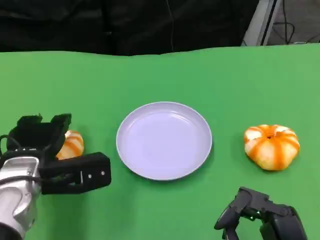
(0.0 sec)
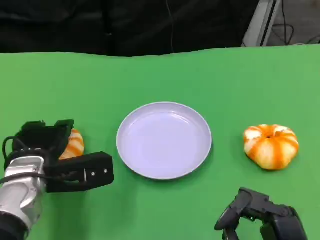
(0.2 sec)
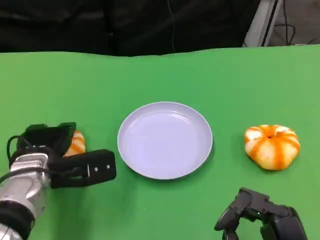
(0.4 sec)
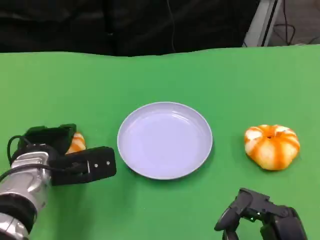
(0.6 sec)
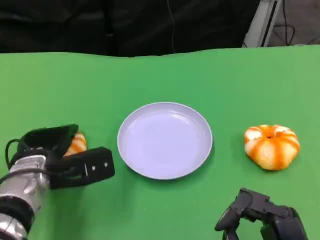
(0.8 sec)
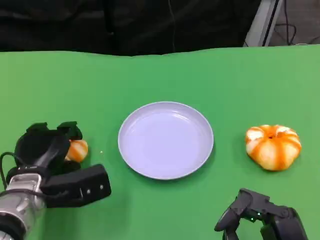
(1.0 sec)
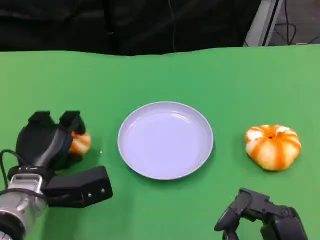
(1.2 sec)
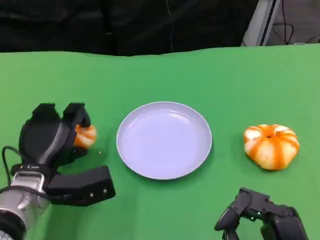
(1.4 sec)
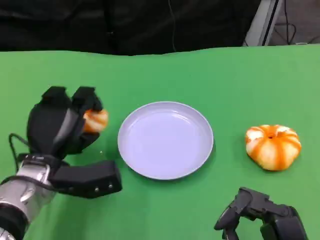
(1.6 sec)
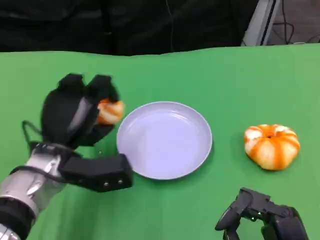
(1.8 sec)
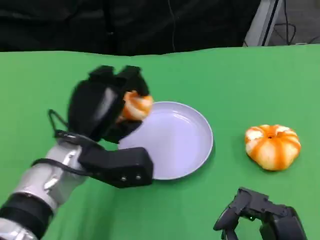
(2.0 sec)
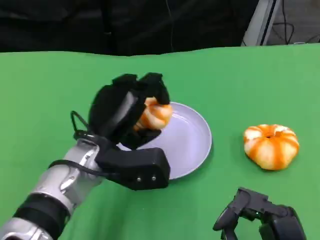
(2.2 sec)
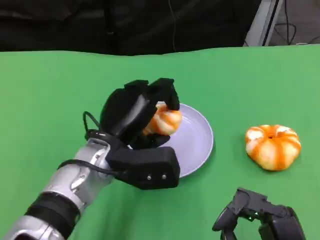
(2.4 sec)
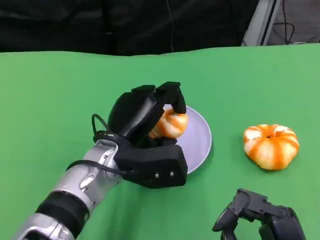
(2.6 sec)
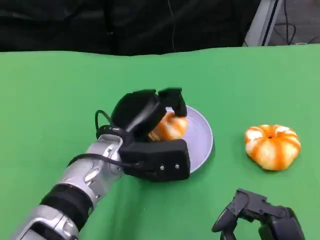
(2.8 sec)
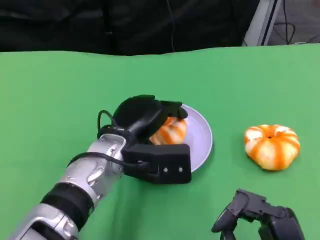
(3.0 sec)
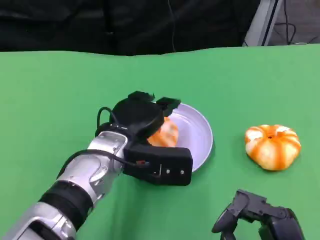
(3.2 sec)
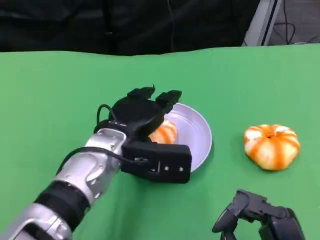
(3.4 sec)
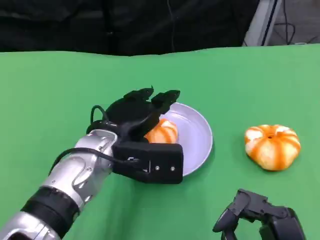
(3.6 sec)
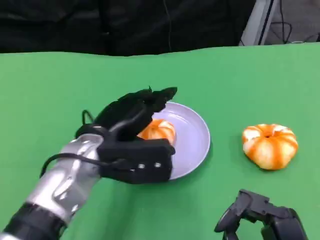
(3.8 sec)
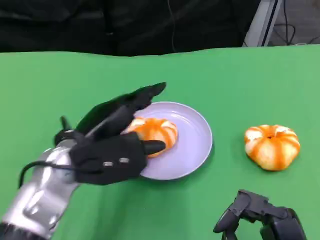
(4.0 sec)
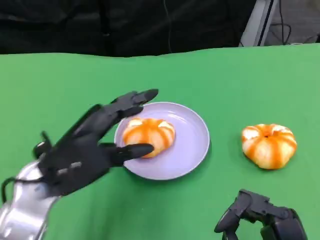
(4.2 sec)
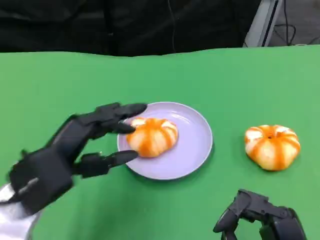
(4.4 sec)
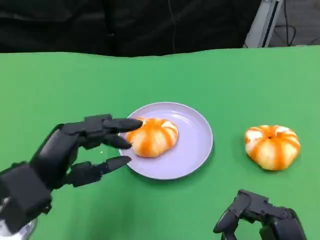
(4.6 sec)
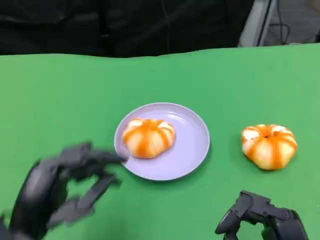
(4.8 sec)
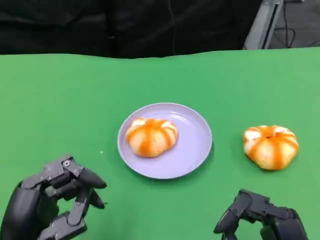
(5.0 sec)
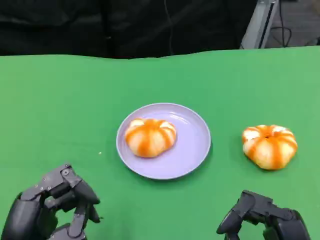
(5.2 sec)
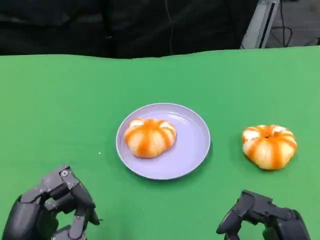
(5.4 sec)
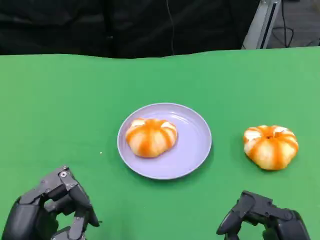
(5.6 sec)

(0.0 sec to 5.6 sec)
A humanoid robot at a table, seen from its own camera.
Task of the whole recording: Grasp the bread from the table and place it into the plate.
1.4 sec - 2.8 sec: The left hand moves to the right and upward, some 10 cm.
2.8 sec - 4.2 sec: The left hand shifts some 10 cm to the left and backward.
4.2 sec - 5.6 sec: The left hand travels backward by approximately 15 cm.

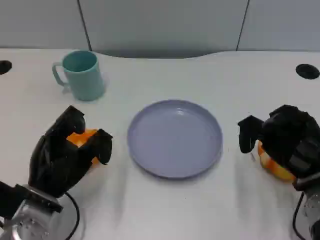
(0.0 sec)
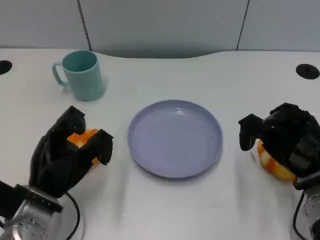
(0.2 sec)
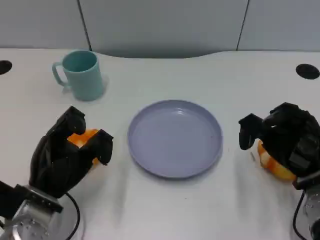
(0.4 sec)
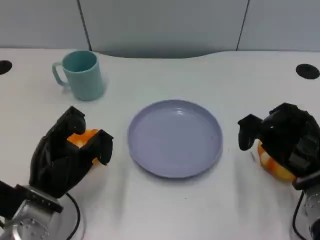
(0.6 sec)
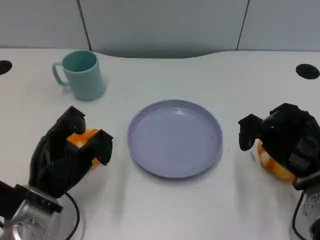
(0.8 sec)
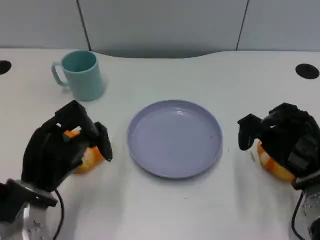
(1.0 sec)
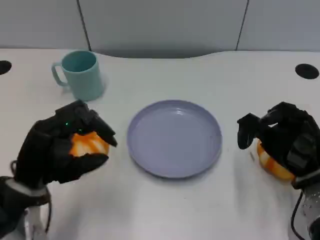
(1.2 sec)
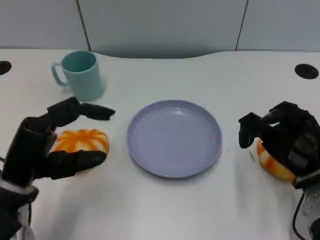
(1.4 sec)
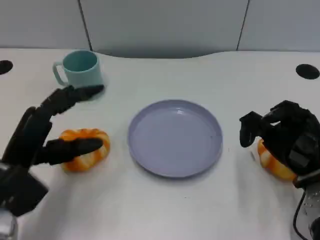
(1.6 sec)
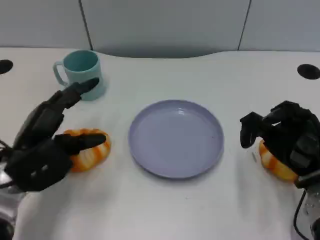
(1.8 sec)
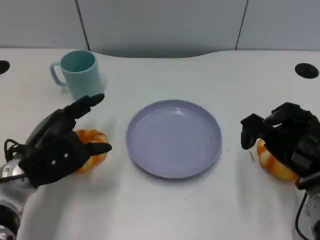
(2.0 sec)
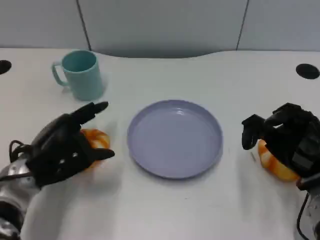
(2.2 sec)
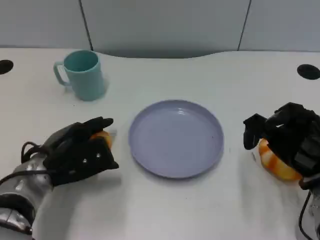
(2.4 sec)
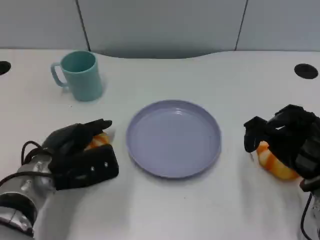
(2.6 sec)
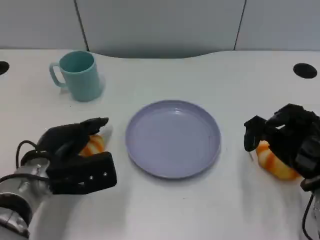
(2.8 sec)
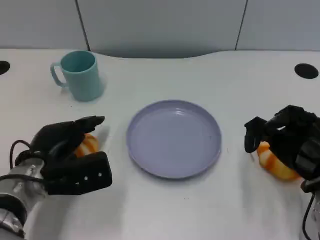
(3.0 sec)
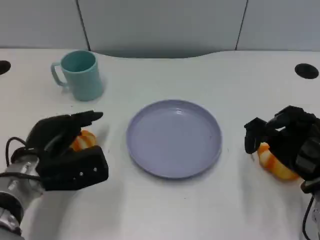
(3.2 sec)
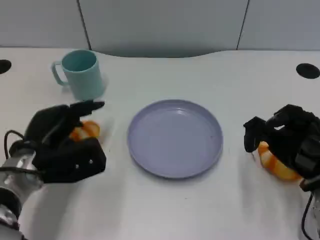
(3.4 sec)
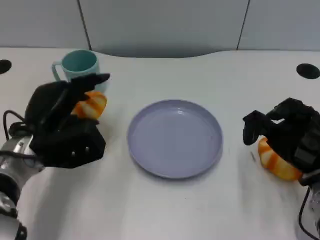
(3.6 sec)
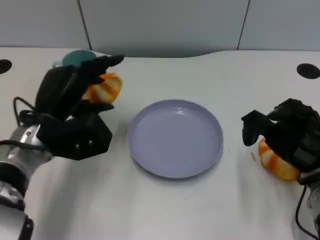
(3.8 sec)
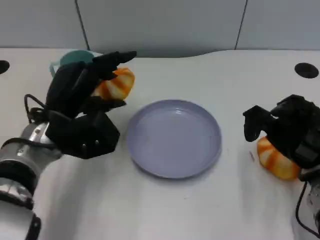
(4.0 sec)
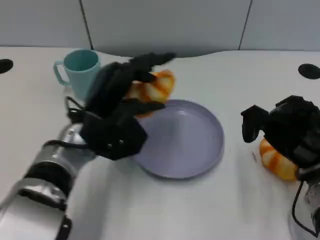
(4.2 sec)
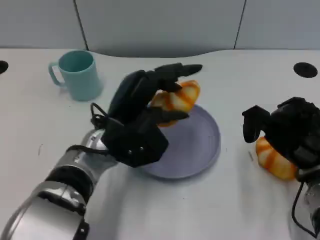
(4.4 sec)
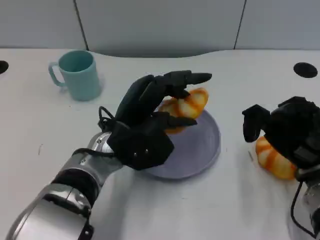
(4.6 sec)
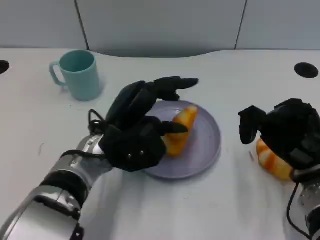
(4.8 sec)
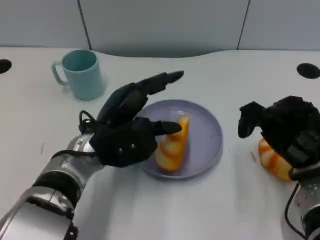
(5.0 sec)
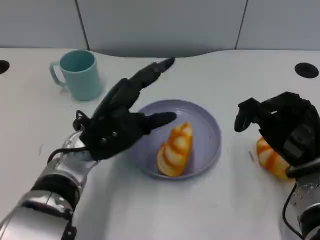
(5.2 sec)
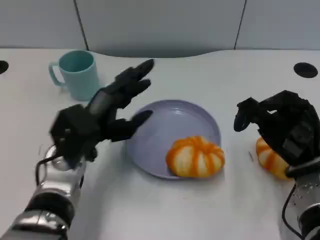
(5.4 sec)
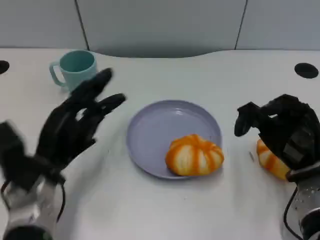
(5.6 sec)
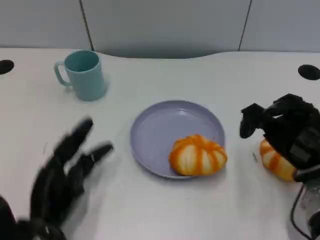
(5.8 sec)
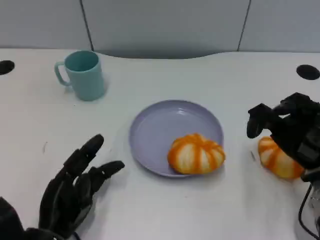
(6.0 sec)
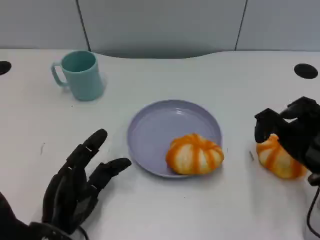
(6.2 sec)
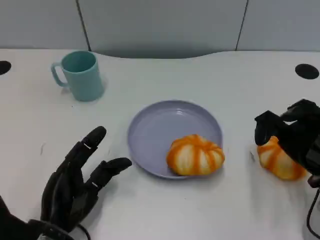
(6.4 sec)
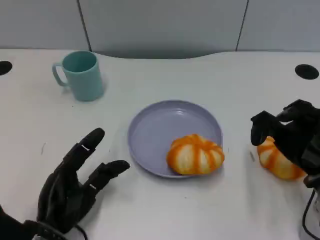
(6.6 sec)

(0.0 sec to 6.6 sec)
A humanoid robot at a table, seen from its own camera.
Task of the whole recording: Grasp the bread from the table and place it into the plate.
0.0 sec - 1.6 sec: The left hand changes place by roughly 5 cm.
1.6 sec - 3.2 sec: The left hand moves about 5 cm.
3.2 sec - 5.0 sec: The left hand moves to the right, approximately 10 cm.
5.0 sec - 6.6 sec: The left hand travels backward, downward and to the left by about 15 cm.
